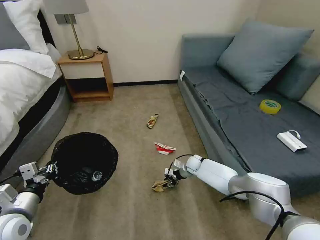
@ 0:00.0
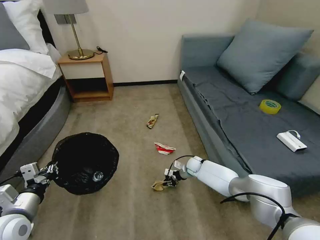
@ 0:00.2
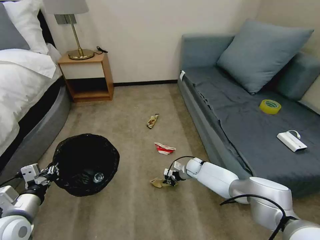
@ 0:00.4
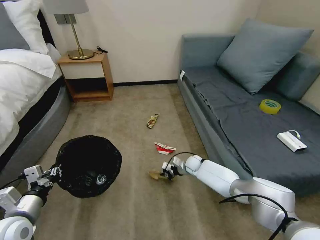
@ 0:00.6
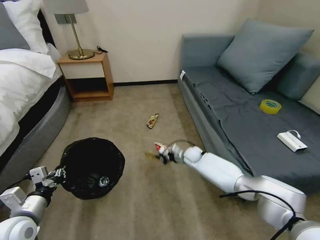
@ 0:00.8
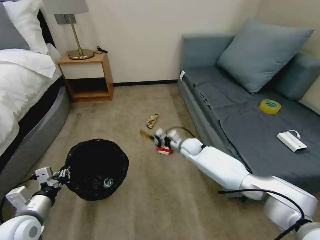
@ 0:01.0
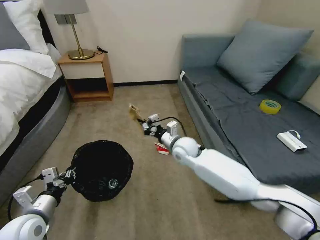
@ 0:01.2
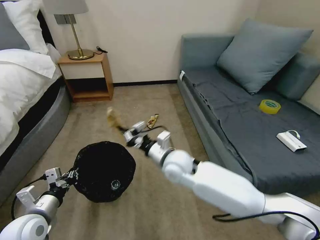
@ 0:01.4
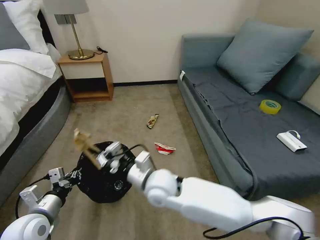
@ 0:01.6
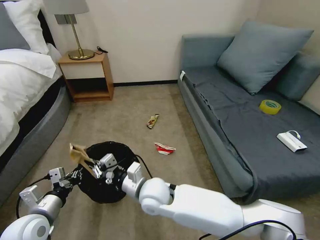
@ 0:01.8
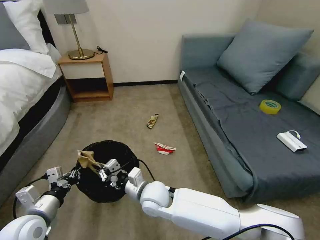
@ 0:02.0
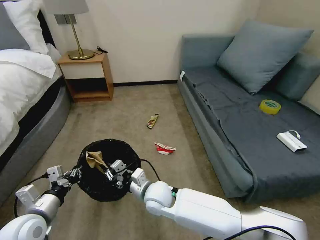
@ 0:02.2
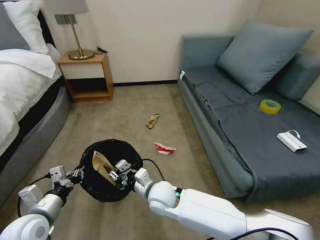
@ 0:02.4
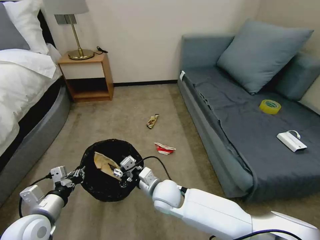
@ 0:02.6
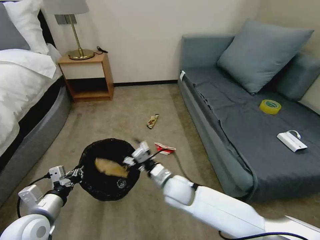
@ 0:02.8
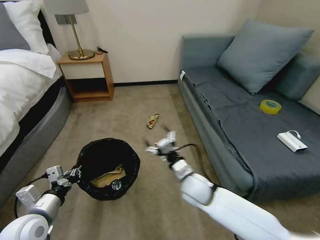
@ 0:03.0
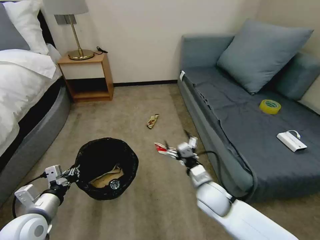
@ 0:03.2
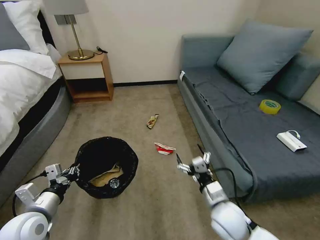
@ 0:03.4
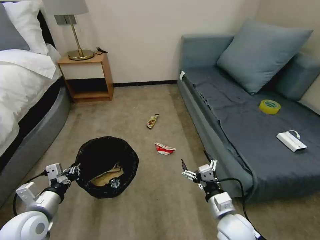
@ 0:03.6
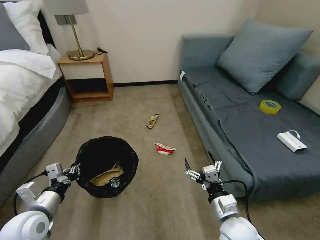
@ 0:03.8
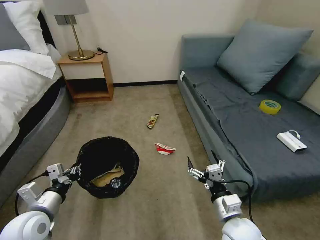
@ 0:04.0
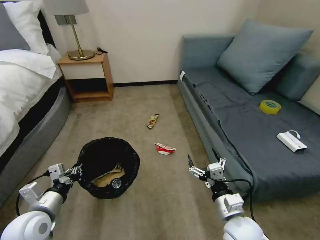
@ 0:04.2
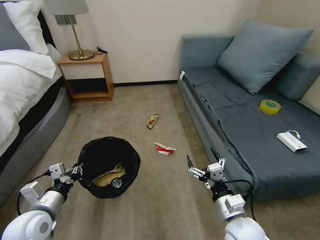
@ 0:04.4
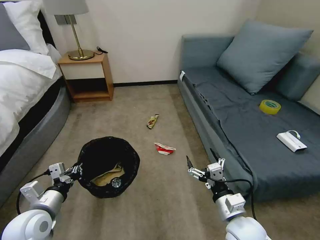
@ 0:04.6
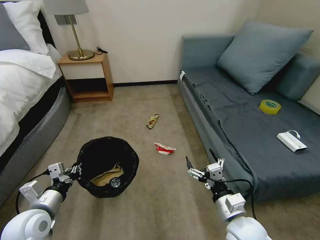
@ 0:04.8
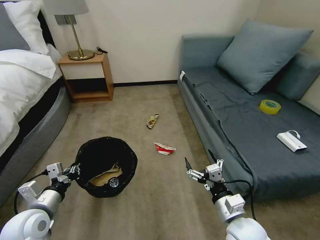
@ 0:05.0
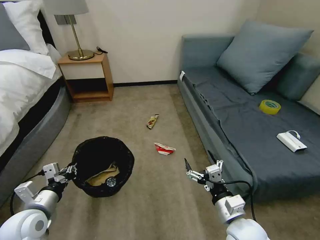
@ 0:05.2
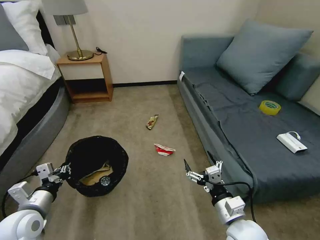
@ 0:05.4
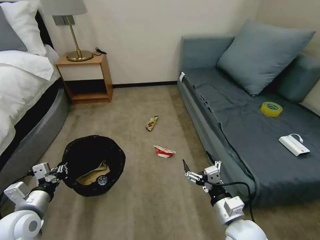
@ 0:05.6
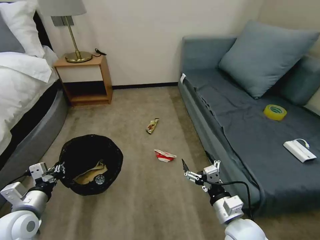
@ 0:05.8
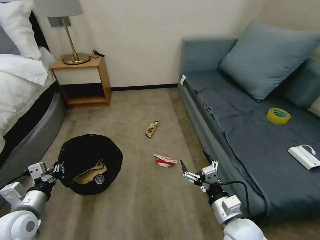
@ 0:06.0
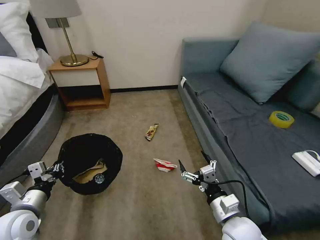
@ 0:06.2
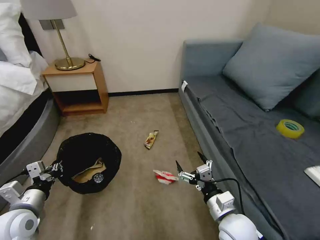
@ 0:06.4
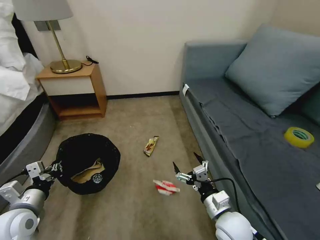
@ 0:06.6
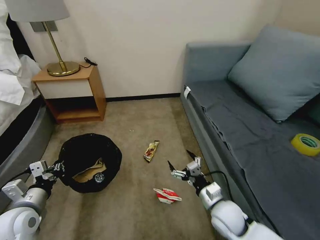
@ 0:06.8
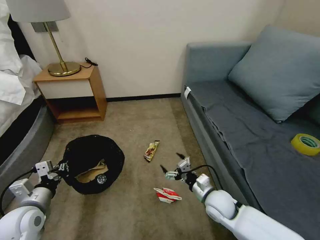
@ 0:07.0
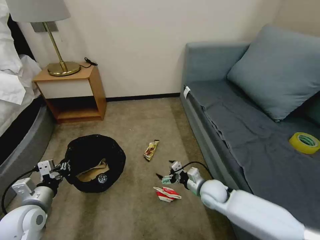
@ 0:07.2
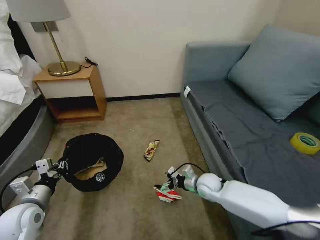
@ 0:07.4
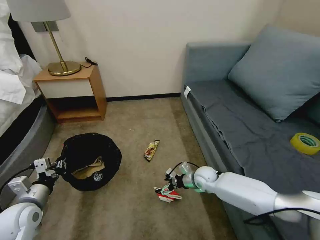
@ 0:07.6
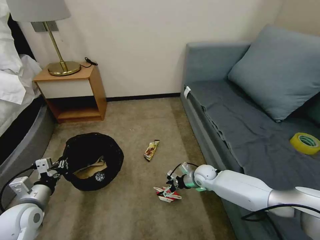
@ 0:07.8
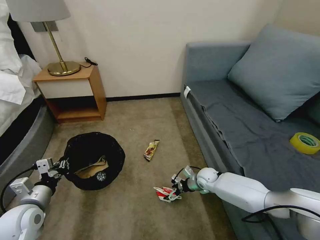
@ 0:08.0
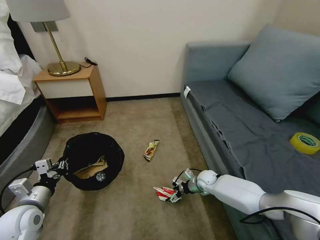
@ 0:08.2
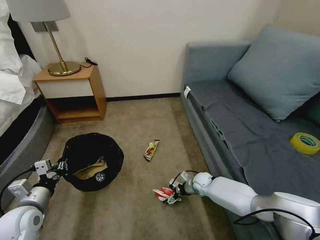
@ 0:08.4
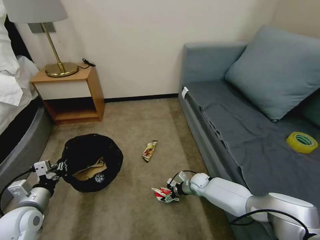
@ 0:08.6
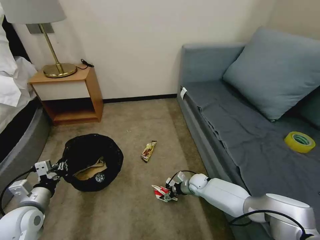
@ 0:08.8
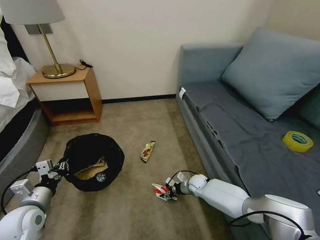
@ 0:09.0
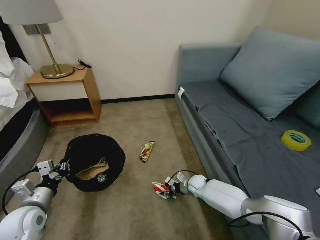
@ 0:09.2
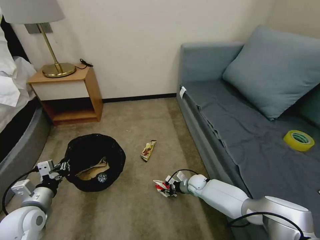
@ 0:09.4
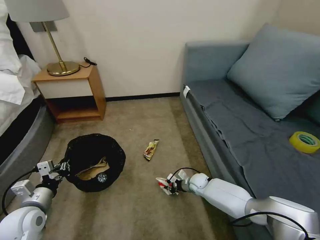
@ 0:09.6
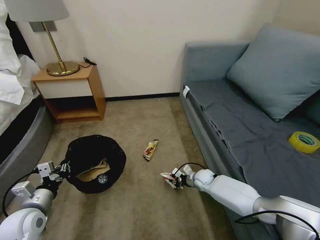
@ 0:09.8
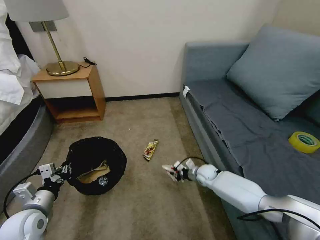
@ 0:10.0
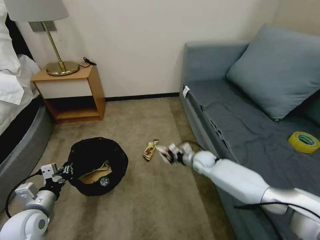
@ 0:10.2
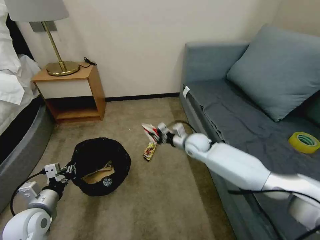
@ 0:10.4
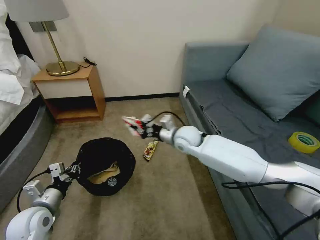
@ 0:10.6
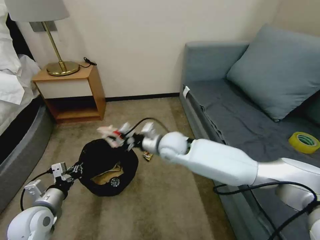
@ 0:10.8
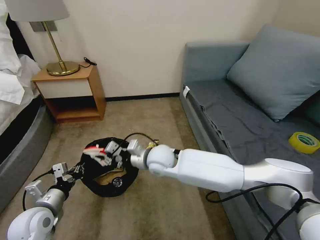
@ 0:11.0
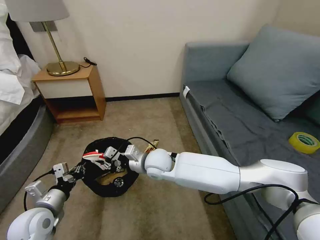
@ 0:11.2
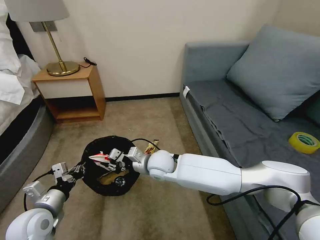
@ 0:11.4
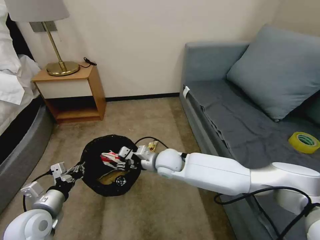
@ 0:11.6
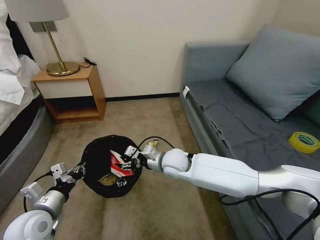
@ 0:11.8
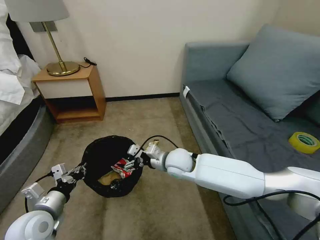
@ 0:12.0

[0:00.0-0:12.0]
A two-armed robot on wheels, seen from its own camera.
Task of the whole recording: Pick up the trash bin, then pick up the garbage on the floor and place it into the trash bin.
0:00.0 to 0:01.6: The right gripper moves upward, backward and to the left, about 35 cm, and closes.
0:01.6 to 0:03.0: The right gripper goes about 15 cm to the right and downward, and opens.
0:03.0 to 0:04.4: The right gripper heads backward and to the right, covering approximately 15 cm.
0:06.0 to 0:07.6: The right gripper shifts some 25 cm forward and downward.
0:07.6 to 0:09.0: The right gripper moves downward, approximately 10 cm, and closes its fingers.
0:09.0 to 0:10.4: The right gripper heads upward, covering about 25 cm, and closes.
0:10.4 to 0:12.0: The right gripper is displaced backward and to the left by some 10 cm, and opens up.

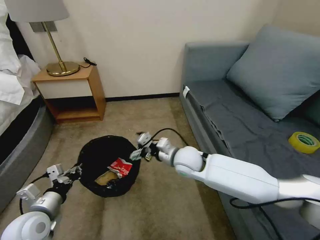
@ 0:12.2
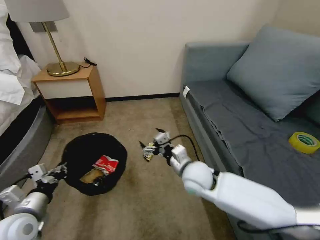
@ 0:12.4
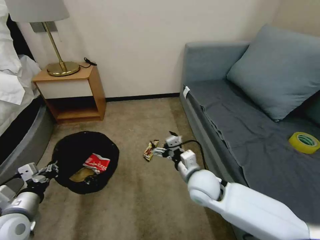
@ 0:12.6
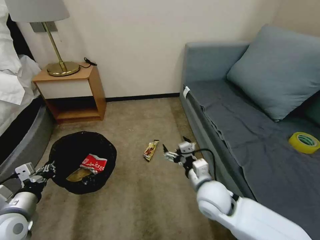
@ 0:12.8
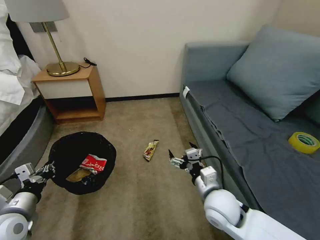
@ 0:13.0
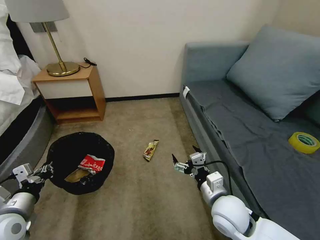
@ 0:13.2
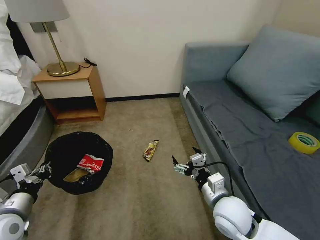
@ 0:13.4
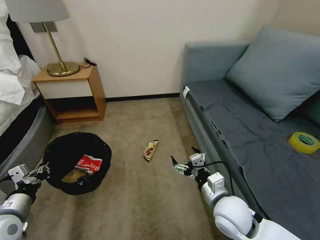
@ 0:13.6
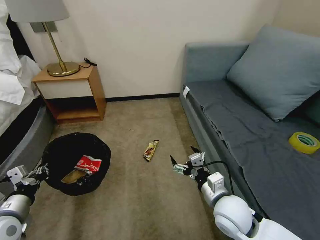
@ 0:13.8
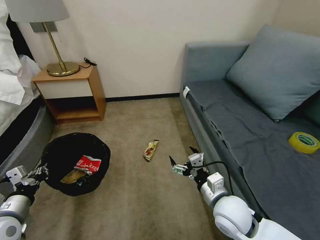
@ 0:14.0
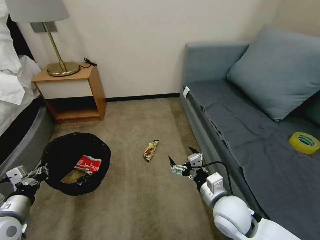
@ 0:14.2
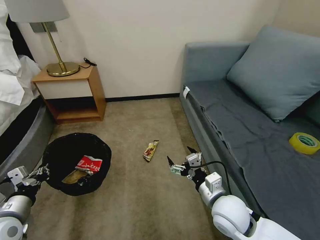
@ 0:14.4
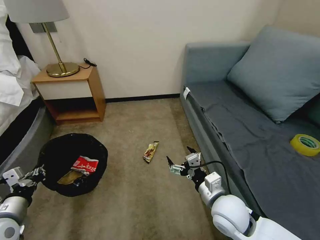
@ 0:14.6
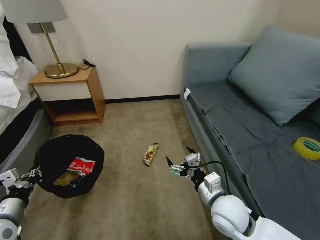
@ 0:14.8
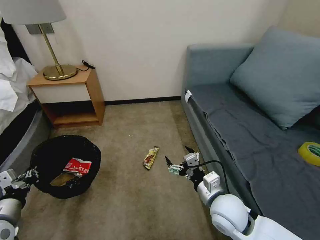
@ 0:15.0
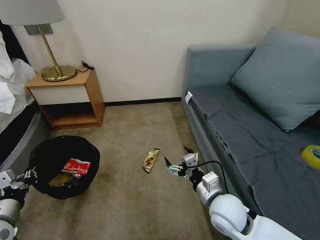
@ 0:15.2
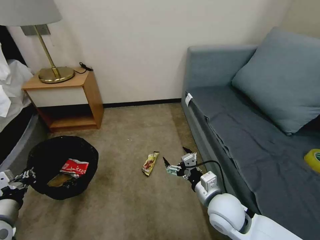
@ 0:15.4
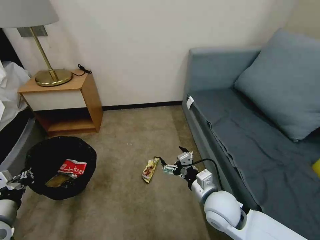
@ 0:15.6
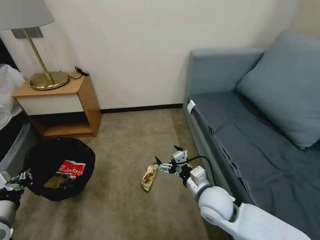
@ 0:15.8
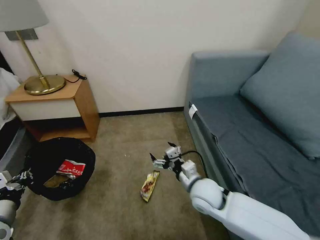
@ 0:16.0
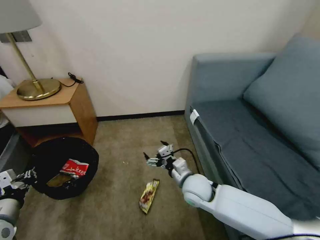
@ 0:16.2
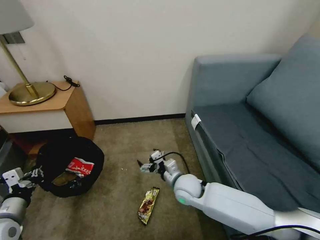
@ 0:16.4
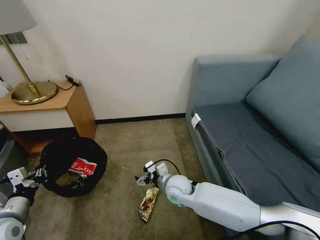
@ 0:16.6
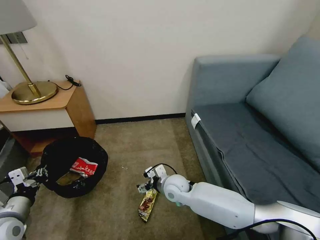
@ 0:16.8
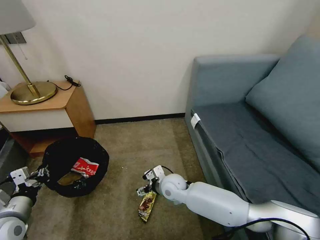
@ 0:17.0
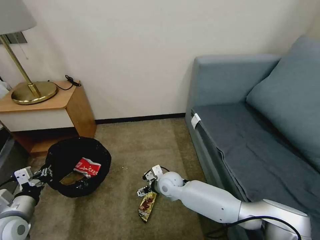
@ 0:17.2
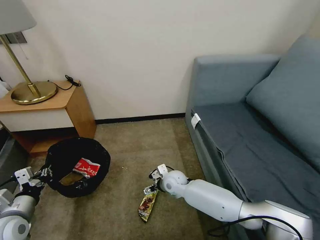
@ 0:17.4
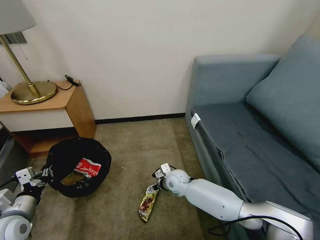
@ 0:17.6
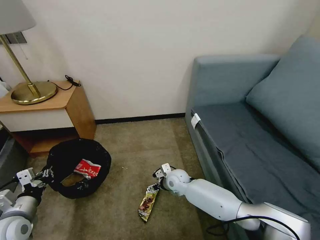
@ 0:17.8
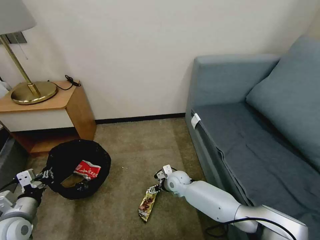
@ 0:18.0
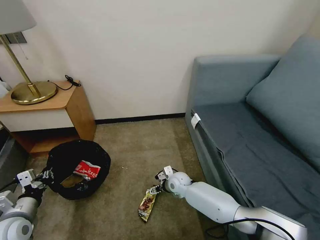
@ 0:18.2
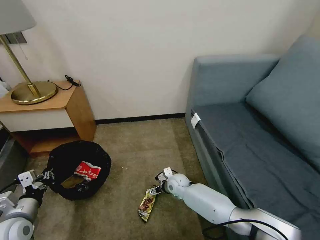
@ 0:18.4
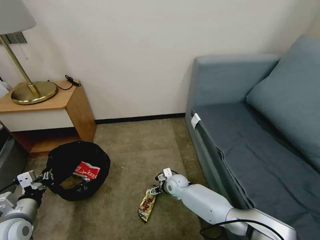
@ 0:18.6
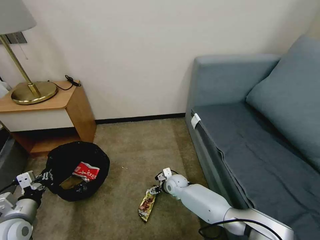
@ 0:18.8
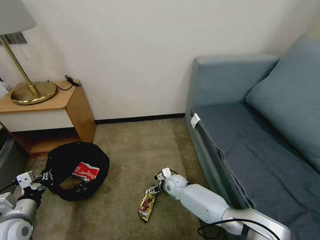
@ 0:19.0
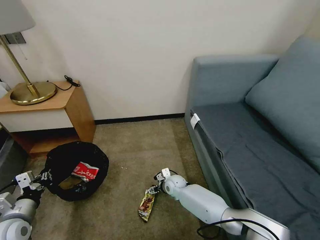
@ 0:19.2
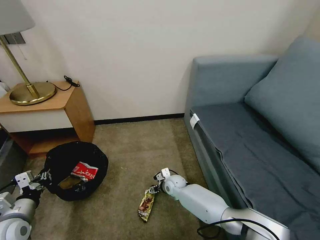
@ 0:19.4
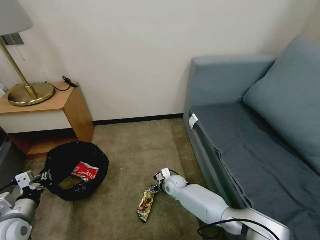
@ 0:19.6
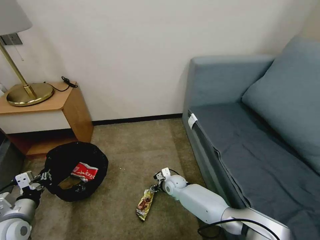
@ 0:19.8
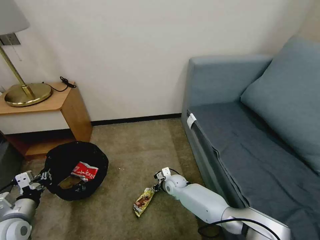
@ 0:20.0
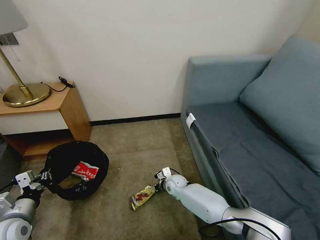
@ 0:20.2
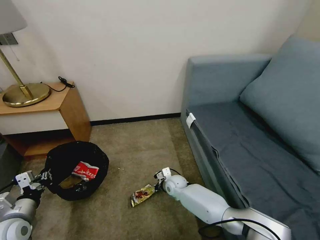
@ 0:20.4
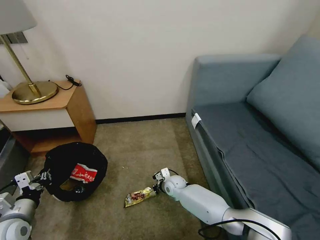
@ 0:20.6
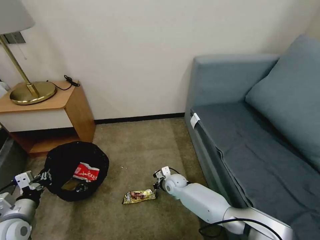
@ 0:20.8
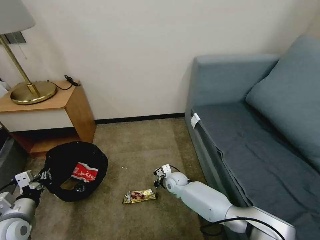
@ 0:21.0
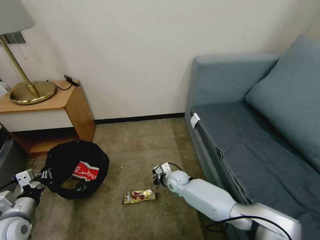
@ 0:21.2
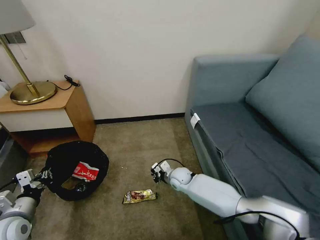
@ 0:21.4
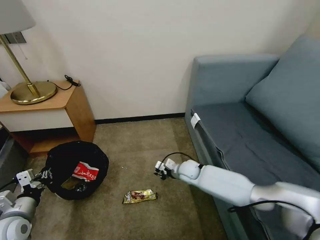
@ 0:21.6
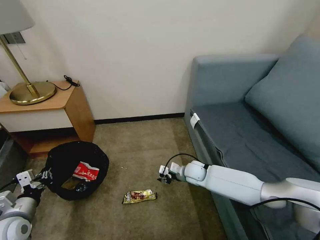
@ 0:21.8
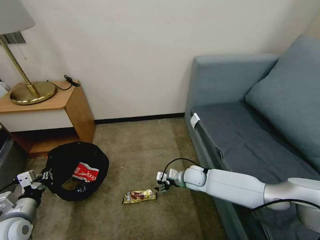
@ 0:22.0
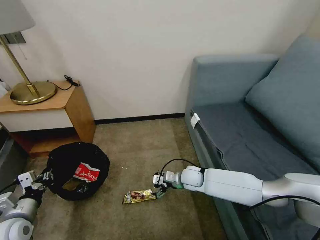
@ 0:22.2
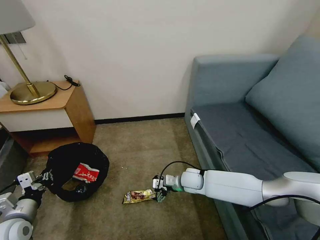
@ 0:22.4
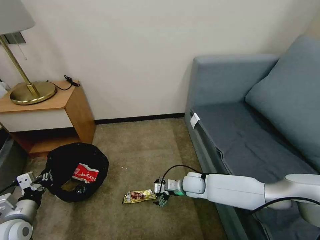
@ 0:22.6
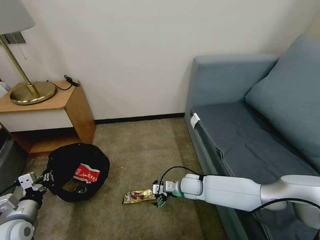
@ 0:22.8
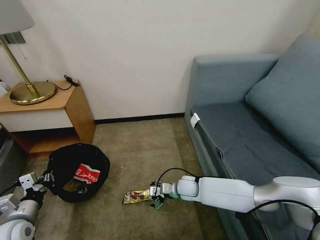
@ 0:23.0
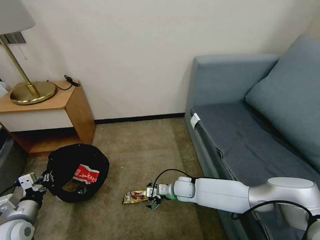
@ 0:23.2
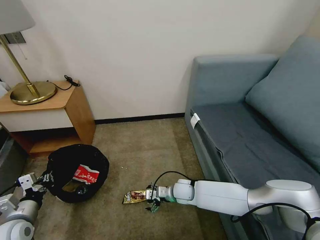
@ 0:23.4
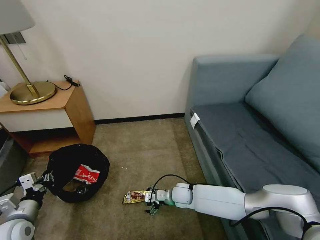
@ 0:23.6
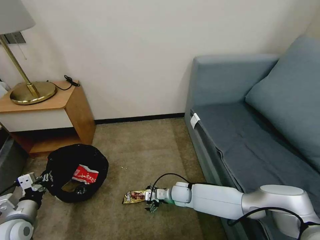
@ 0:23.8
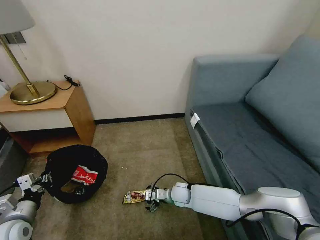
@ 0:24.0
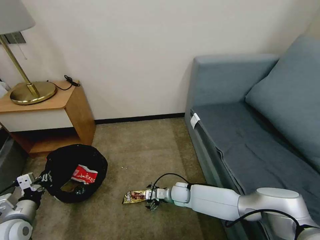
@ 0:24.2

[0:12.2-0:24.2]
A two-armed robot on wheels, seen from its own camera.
Task of the whole recording: Pick up the trash bin, then pick up the garbage on the floor and place it into the trash bin.
0:12.2 to 0:13.8: The left gripper heads to the left, covering approximately 5 cm. The right gripper travels backward and to the right by about 20 cm.
0:15.2 to 0:16.6: The right gripper moves to the left, forward and downward, roughly 15 cm.
0:16.6 to 0:18.2: The right gripper shifts some 10 cm downward and forward.
0:18.2 to 0:19.8: The grippers make only small movements.
0:19.8 to 0:21.2: The right gripper closes.
0:21.2 to 0:22.6: The right gripper heads to the right, covering roughly 5 cm, and opens its fingers.
0:22.6 to 0:24.2: The right gripper is displaced downward by roughly 5 cm.
